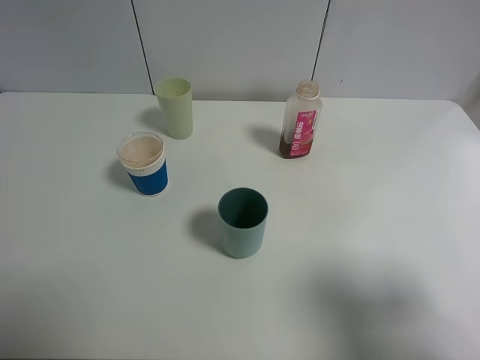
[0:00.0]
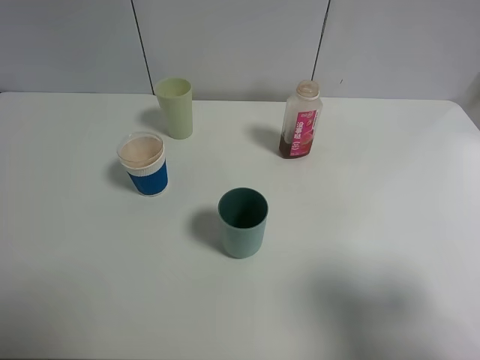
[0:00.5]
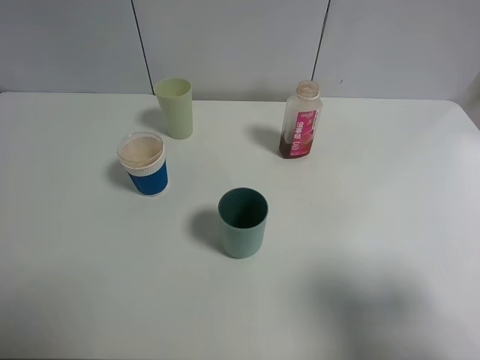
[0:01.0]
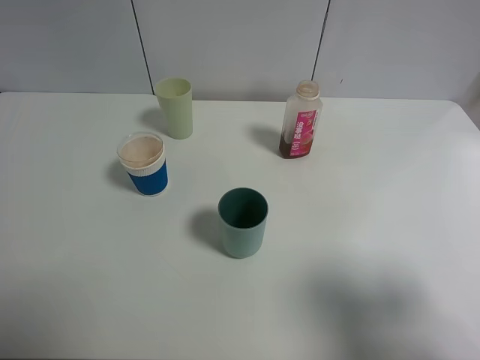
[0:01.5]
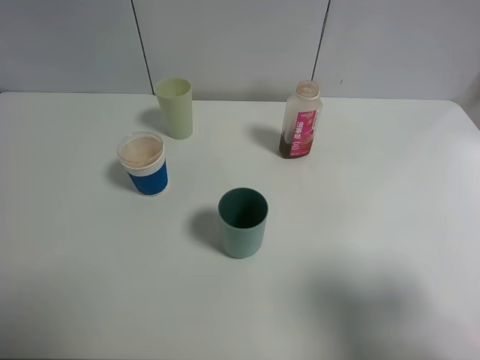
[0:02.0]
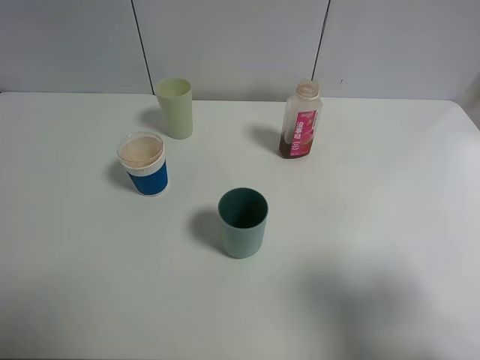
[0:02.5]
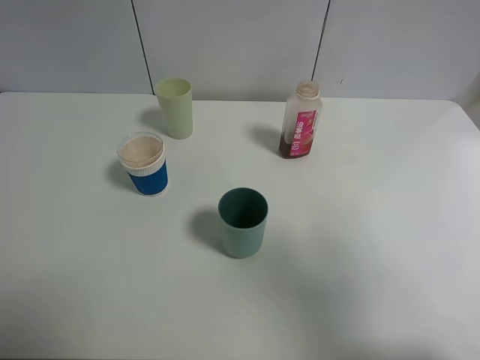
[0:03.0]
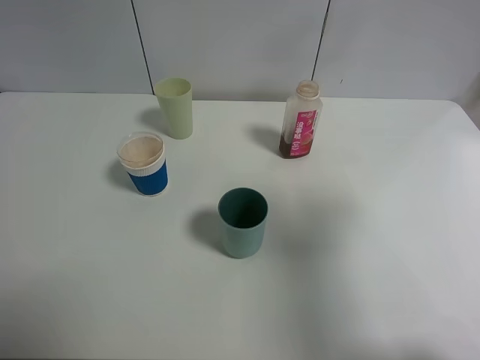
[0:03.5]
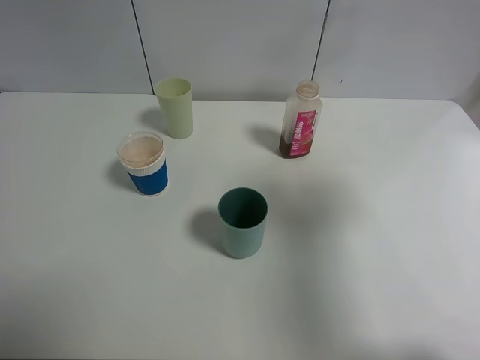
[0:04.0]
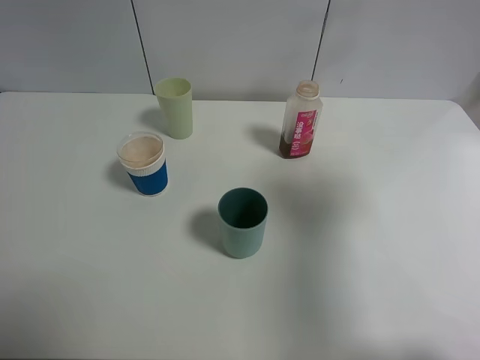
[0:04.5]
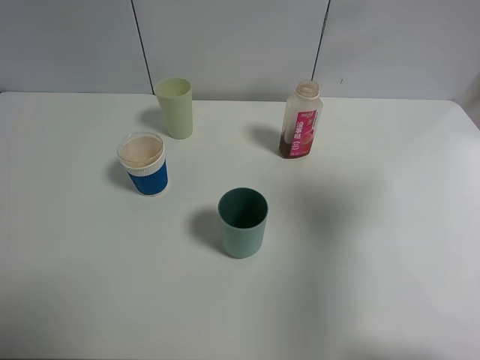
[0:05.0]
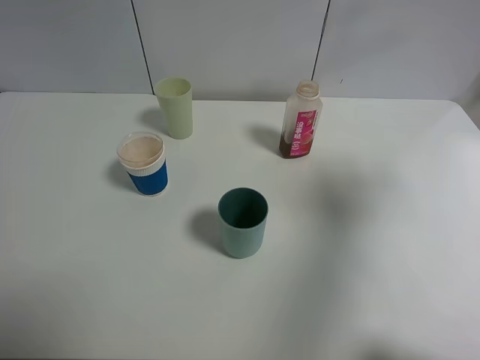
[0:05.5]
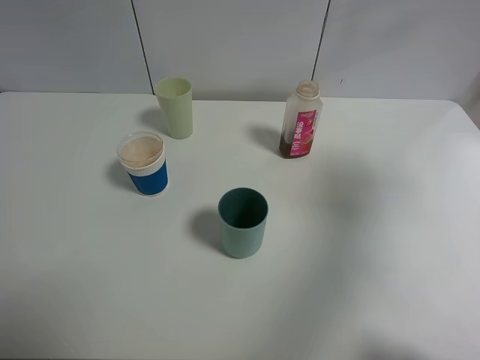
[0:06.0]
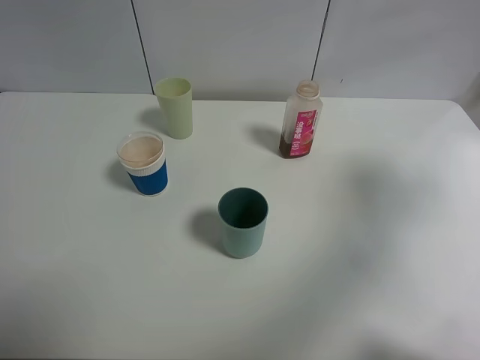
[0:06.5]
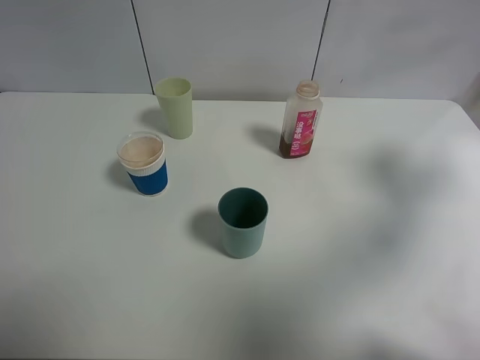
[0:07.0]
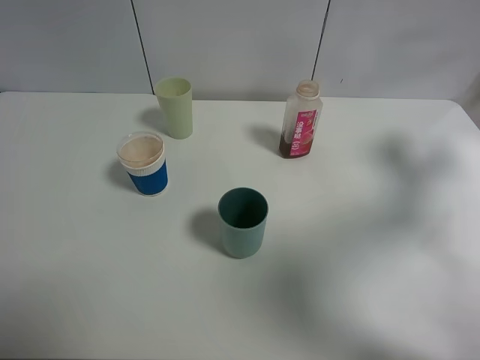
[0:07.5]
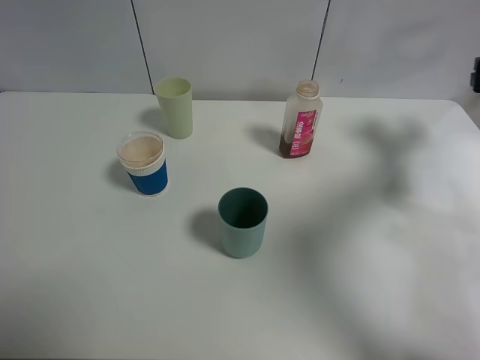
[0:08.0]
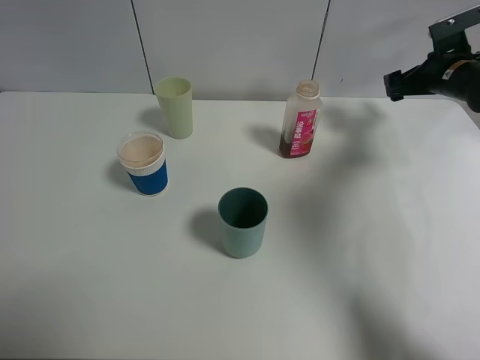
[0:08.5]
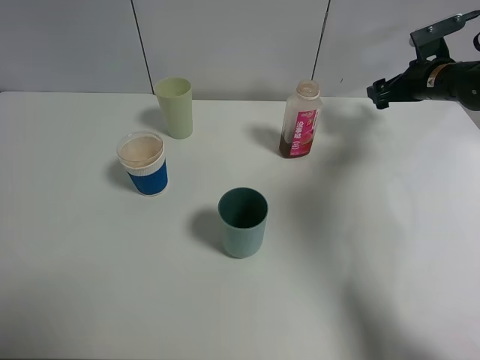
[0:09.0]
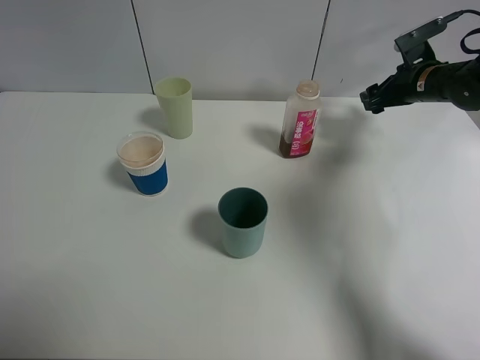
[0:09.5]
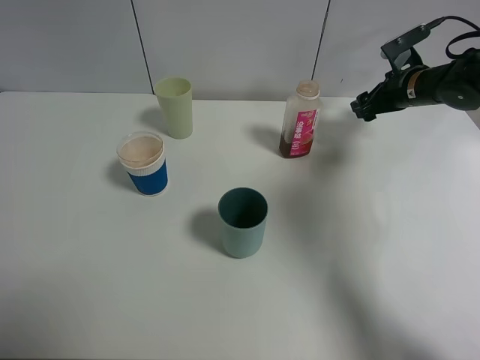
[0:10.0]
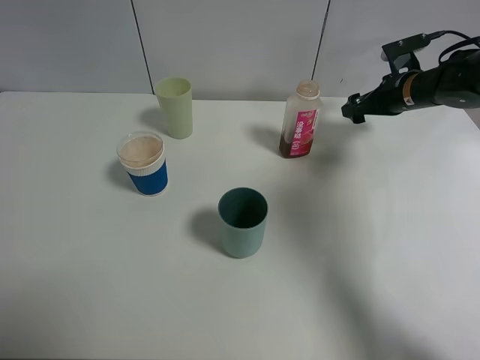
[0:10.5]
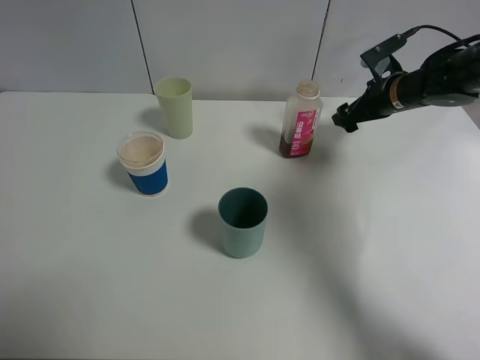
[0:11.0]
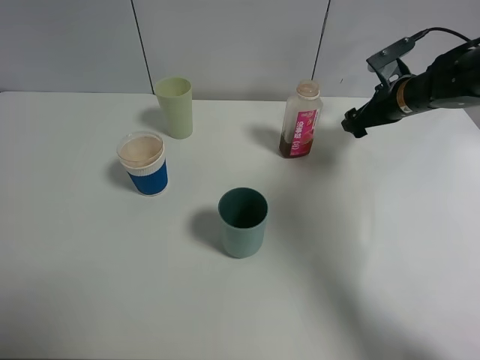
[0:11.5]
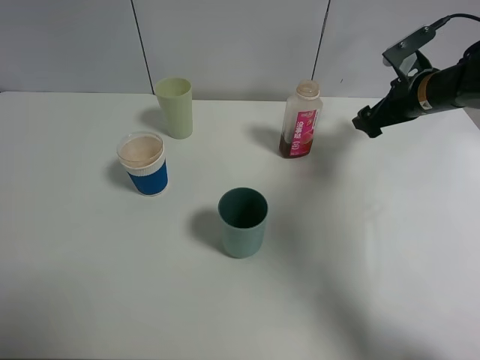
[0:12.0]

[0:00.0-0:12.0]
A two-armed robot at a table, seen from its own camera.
Task of the whole recording: use a clamp to hold the bottle of the drink, pour the beverage into a random cup, then clamp the cup containing the drink and pour the drink into another random cup.
0:00.0 to 0:02.0: Both grippers stay put.
0:02.0 to 0:04.0: The right gripper is displaced forward and upward by about 15 cm.
0:04.0 to 0:06.0: The right gripper goes some 10 cm to the right.
0:06.0 to 0:08.0: The right gripper moves forward and downward, some 25 cm.
0:08.0 to 0:10.0: The right gripper is displaced to the left, forward and downward by approximately 15 cm.
0:10.0 to 0:12.0: The right gripper goes some 5 cm backward.

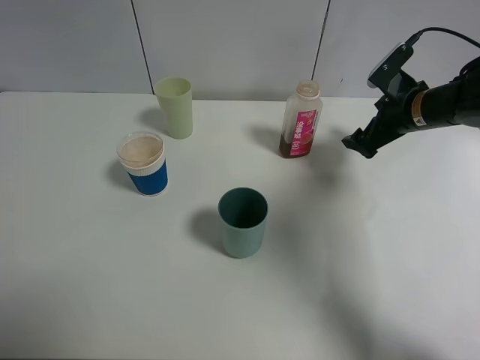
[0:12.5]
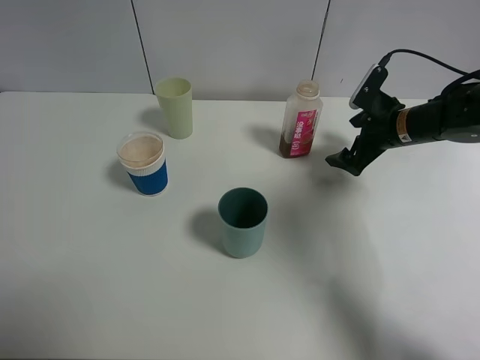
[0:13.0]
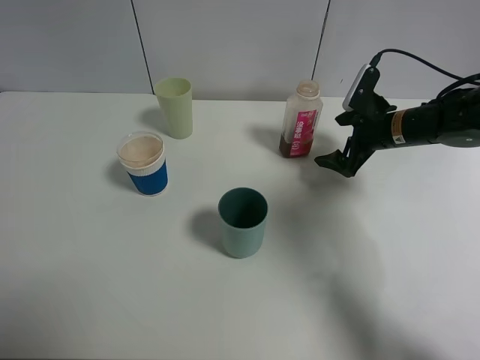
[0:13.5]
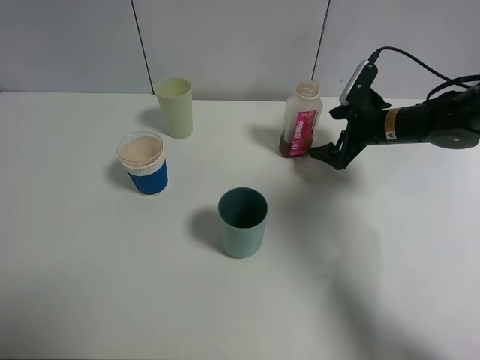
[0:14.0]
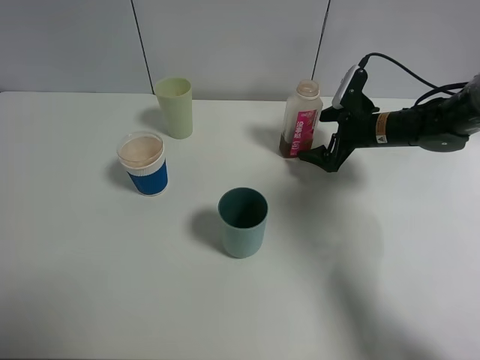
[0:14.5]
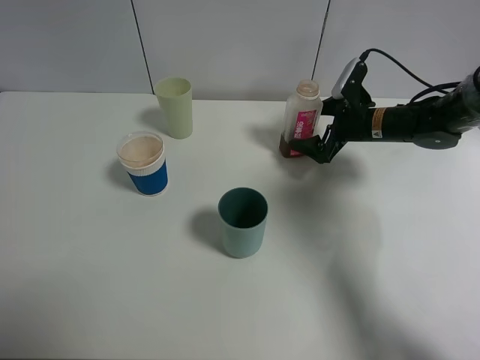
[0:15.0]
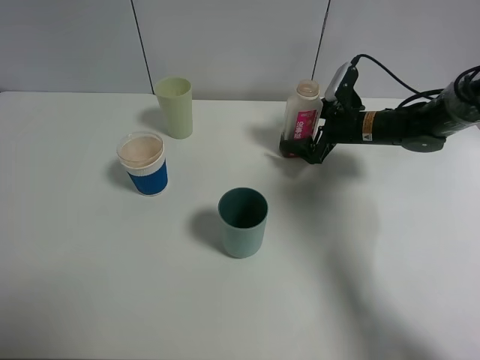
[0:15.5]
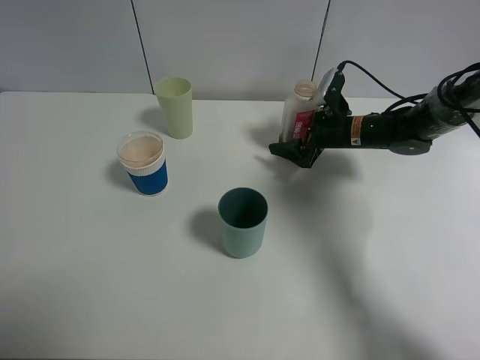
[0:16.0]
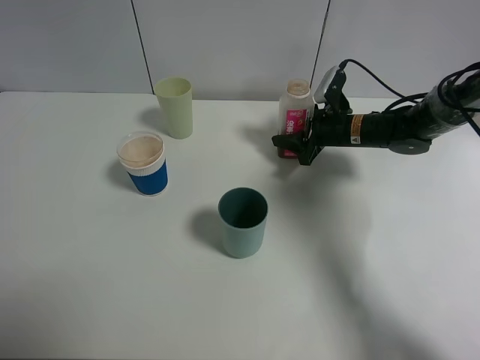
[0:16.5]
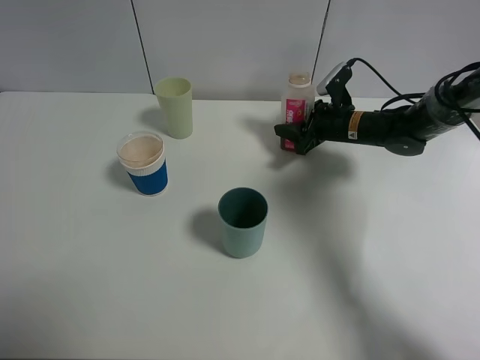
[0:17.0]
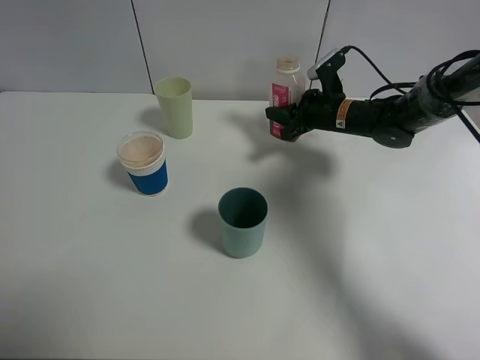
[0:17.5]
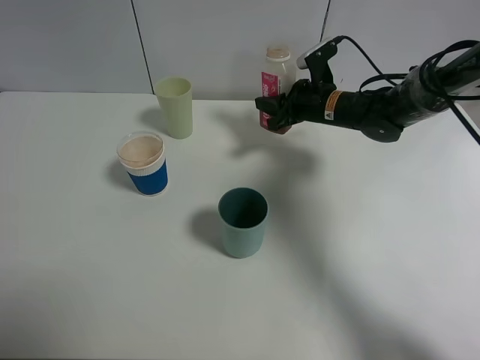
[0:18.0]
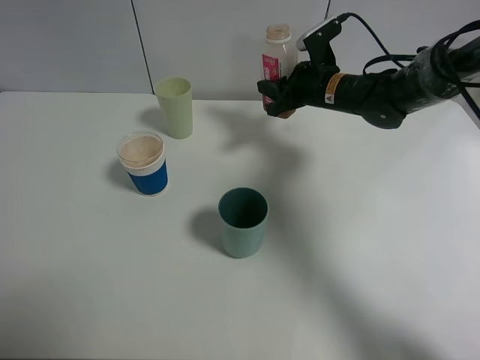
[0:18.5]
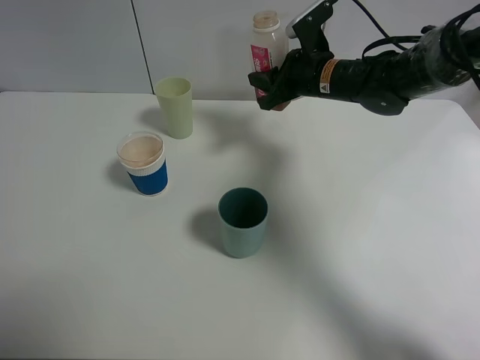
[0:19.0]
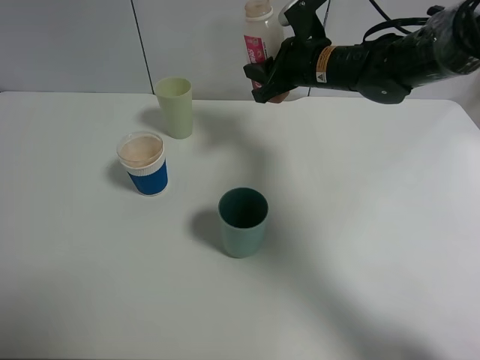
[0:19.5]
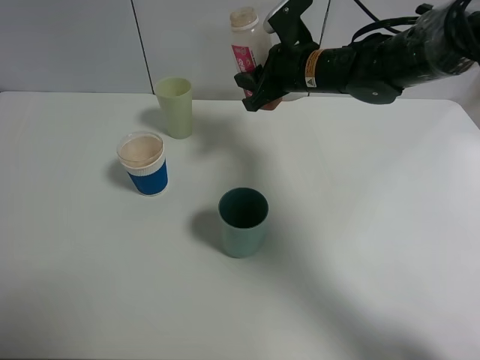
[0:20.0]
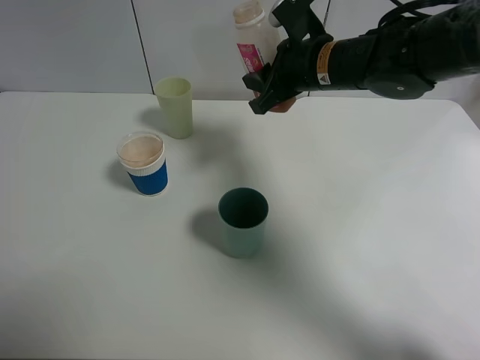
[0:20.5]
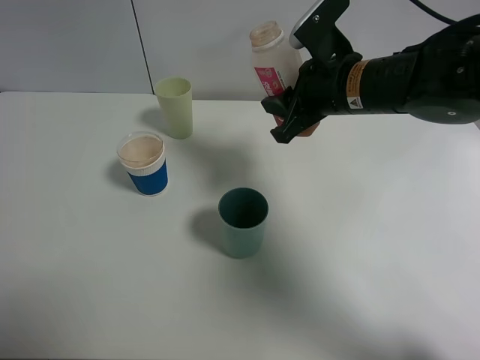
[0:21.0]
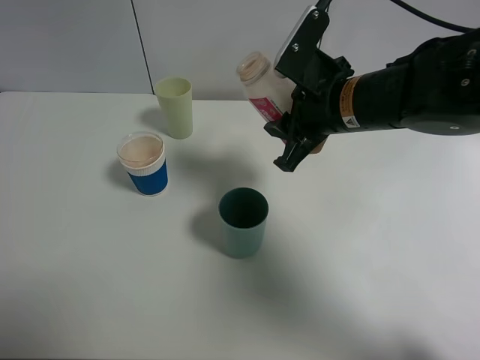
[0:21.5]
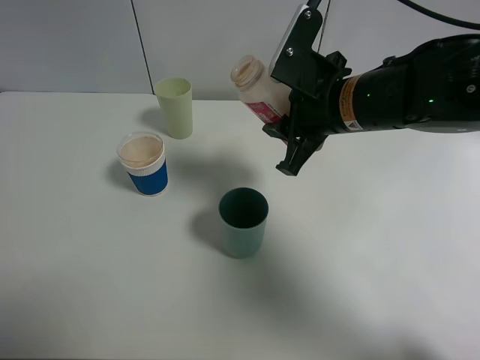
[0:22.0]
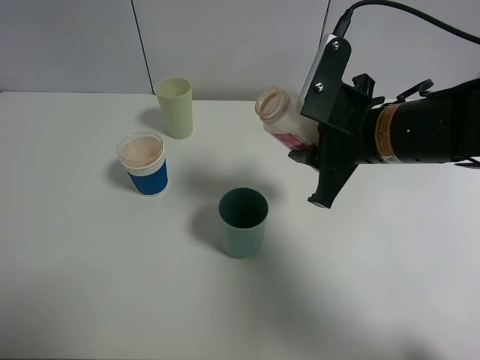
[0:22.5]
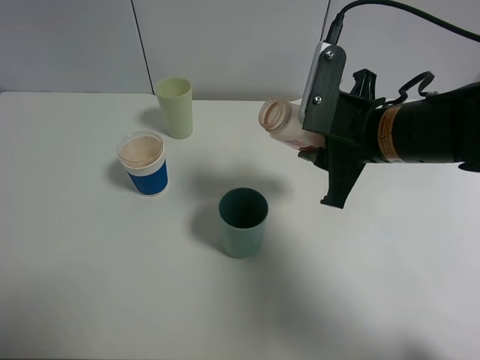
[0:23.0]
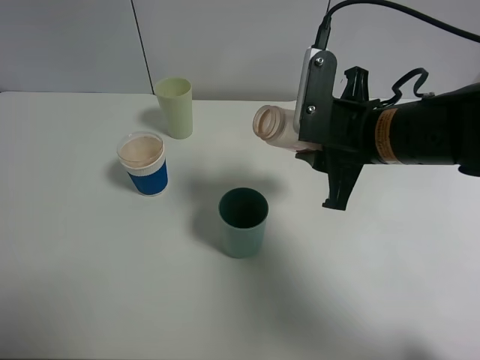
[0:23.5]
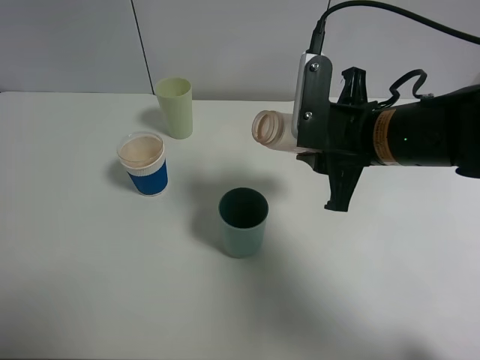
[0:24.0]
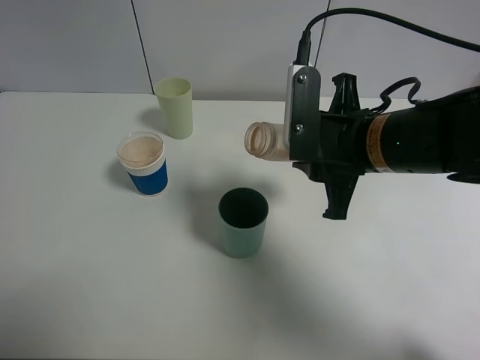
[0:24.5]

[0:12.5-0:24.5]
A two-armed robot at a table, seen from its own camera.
Task of the whole recording: use a clamp to hold the bottle of the drink, pour the beverage into a random cup, then clamp the cup containing the drink and pour the drink into another random cup.
Step, 0:12.5 to 0:17.5: Pick up the drink bottle with right gripper.
0:12.5 to 0:14.5: The right gripper heads downward, covering roughly 5 cm.
0:14.5 to 0:16.5: The right gripper closes up.
0:16.5 to 0:18.5: The right gripper shifts roughly 10 cm upward and to the left.
0:18.5 to 0:20.5: The right gripper goes about 10 cm backward and upward.
0:20.5 to 0:22.5: The right gripper travels backward by some 10 cm.

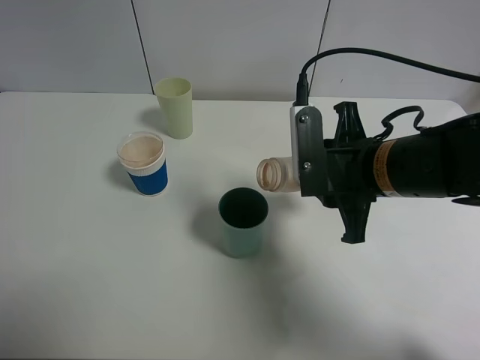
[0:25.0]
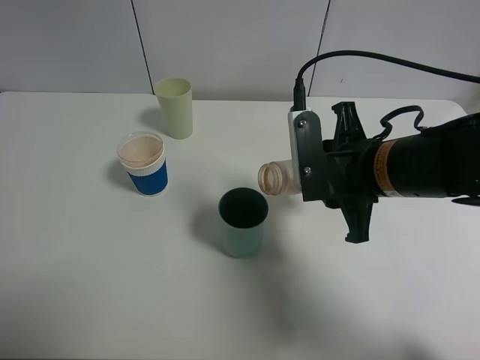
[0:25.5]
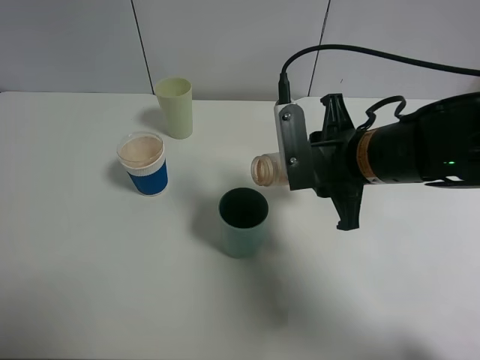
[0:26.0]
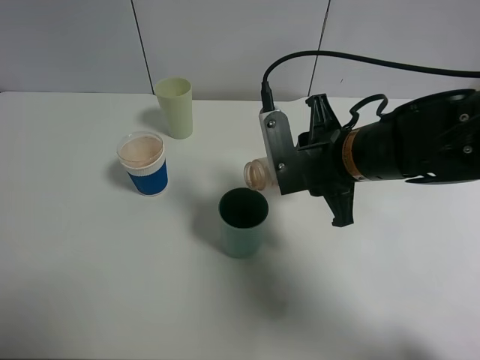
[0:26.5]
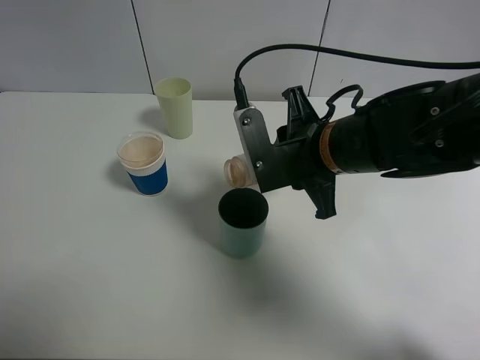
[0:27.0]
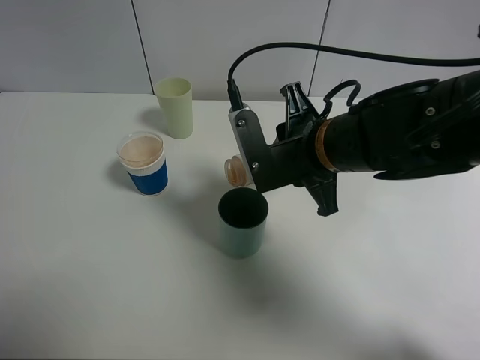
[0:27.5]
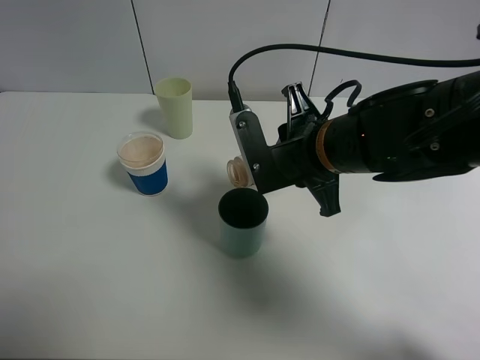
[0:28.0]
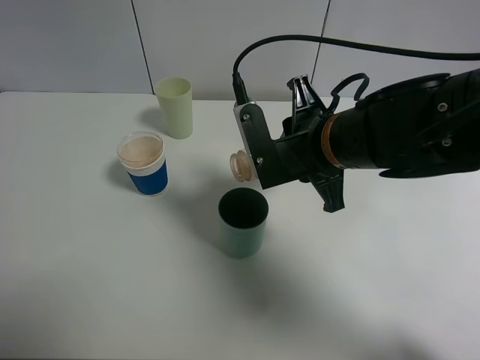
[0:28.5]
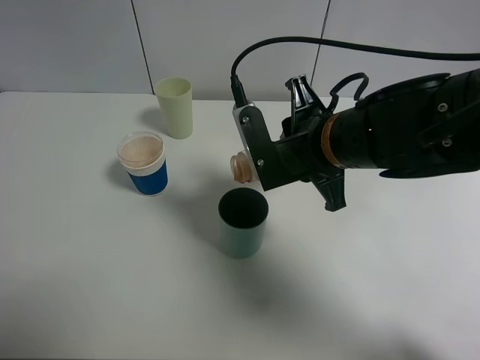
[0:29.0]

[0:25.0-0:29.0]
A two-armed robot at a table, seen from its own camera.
Task of the whole recording: use a clamp to hold the bottle of the drink, pour the beverage into a random cup, then clamp the cup containing the drink and pour the drink into another random cup.
0:25.0 to 0:27.0: The right gripper shifts by some 5 cm.
0:27.0 to 0:29.0: There are only small adjustments of the grippers.
